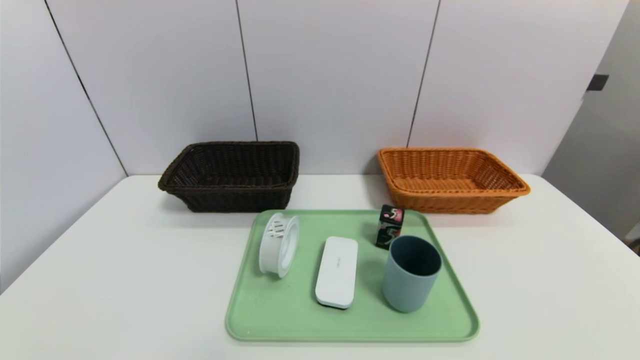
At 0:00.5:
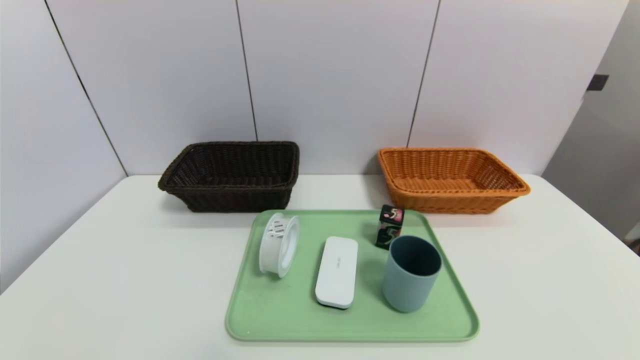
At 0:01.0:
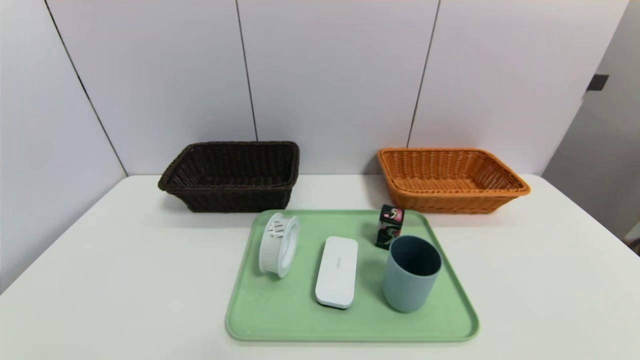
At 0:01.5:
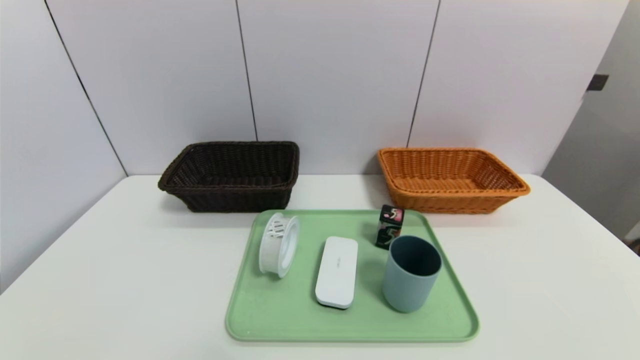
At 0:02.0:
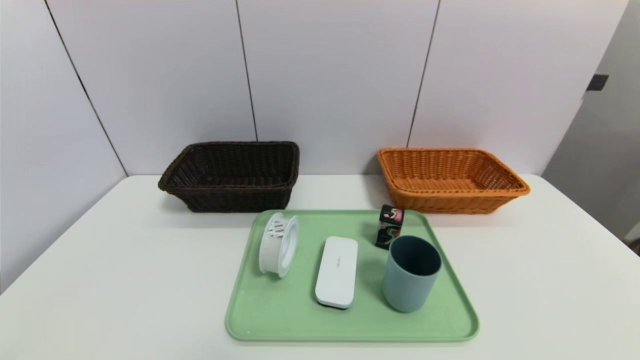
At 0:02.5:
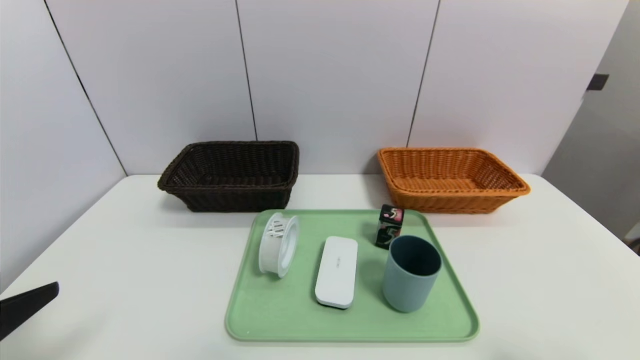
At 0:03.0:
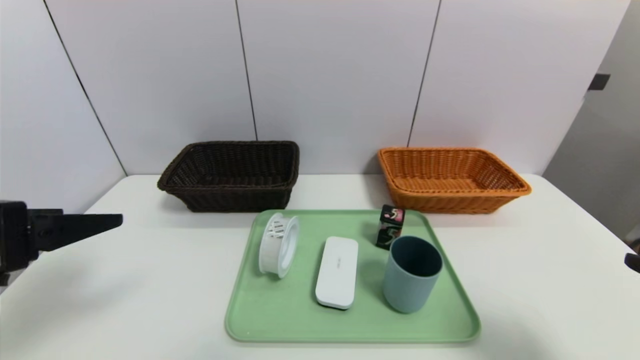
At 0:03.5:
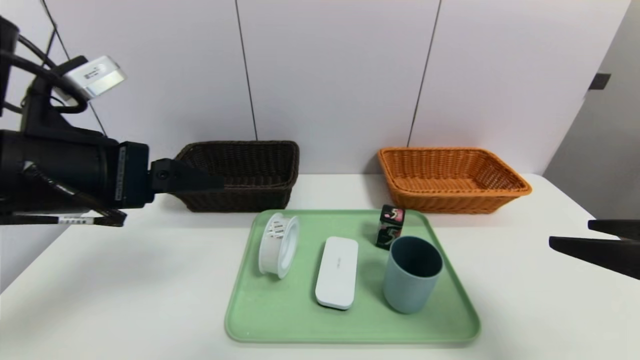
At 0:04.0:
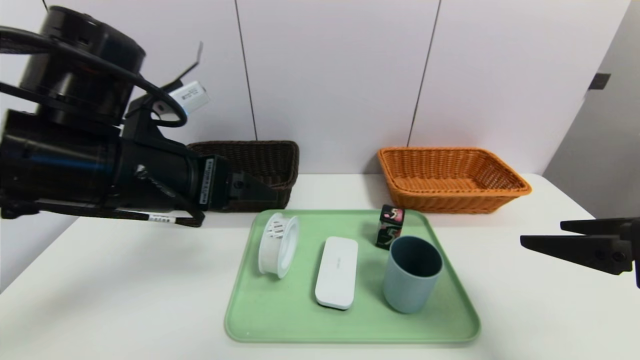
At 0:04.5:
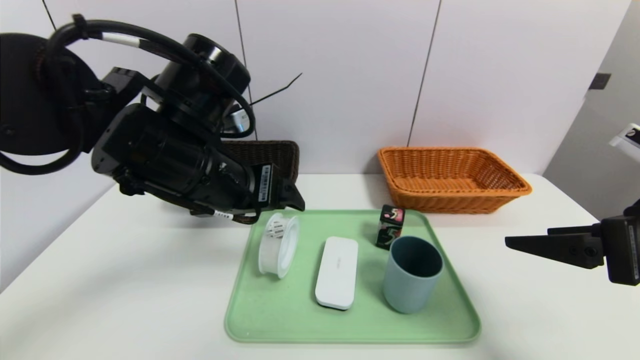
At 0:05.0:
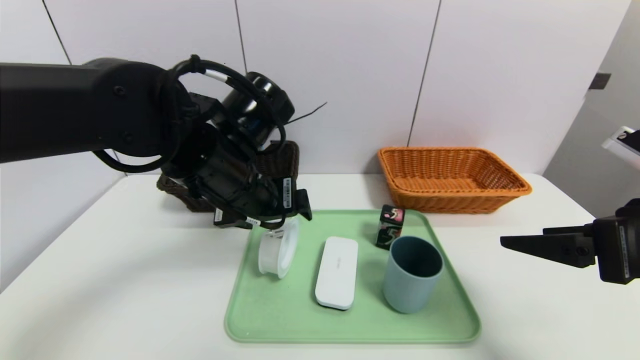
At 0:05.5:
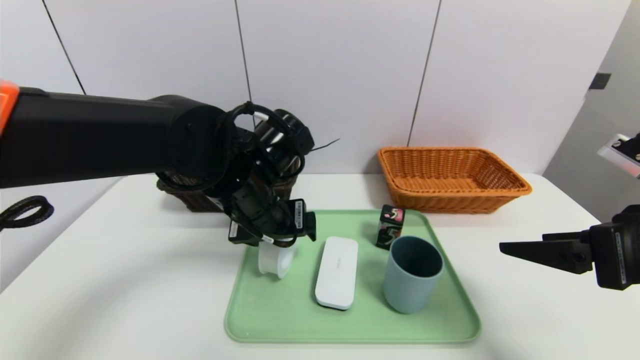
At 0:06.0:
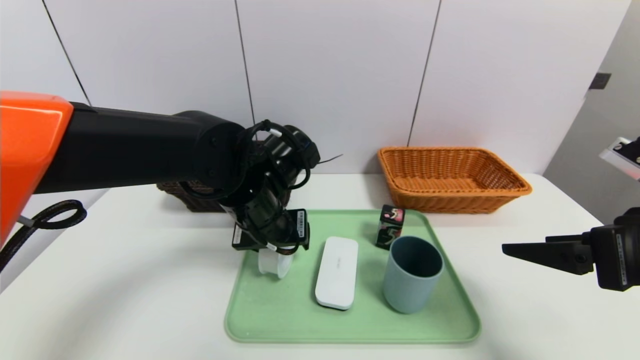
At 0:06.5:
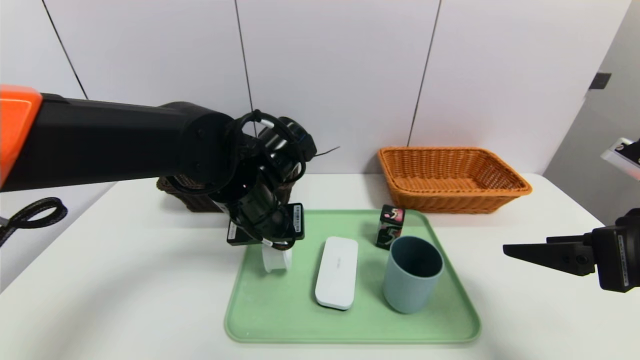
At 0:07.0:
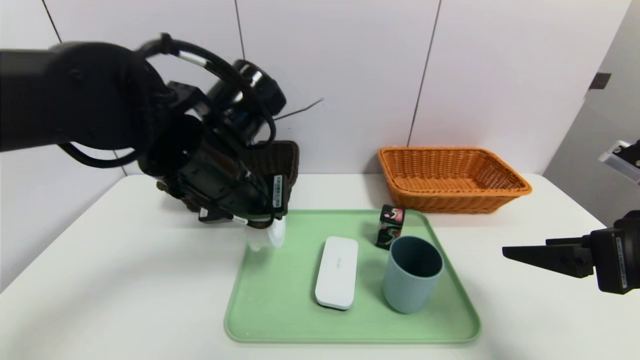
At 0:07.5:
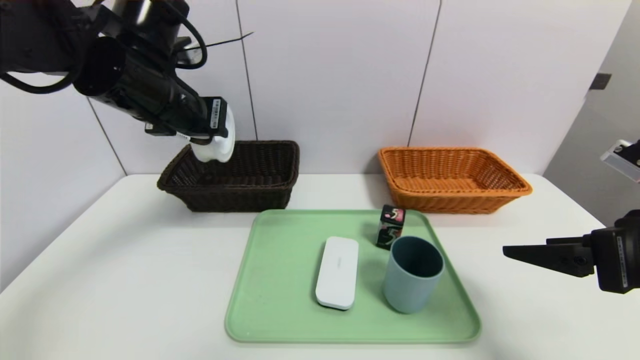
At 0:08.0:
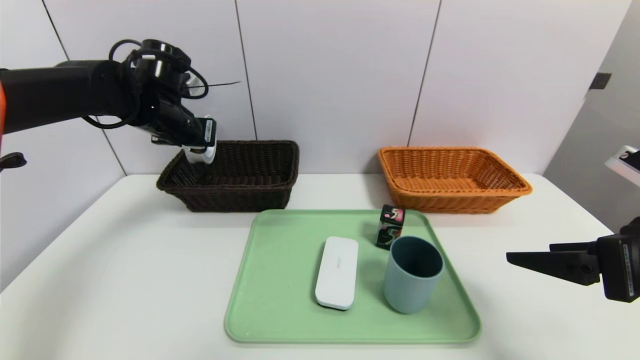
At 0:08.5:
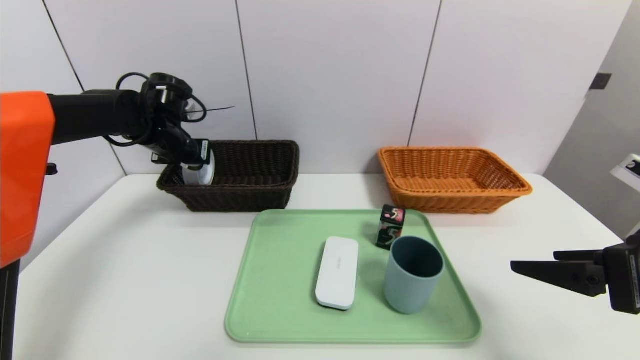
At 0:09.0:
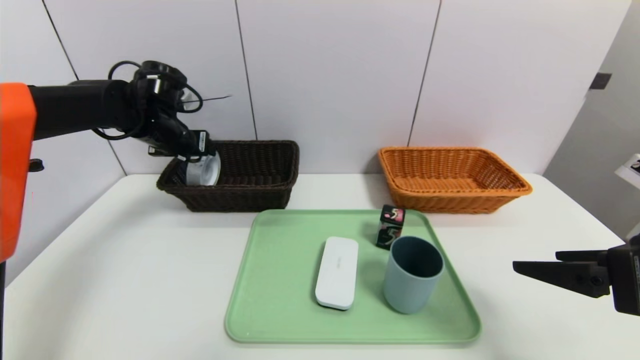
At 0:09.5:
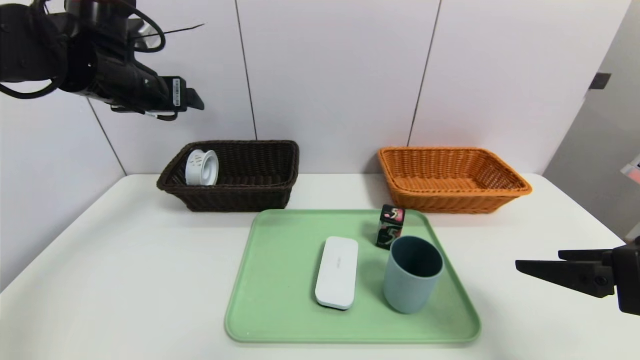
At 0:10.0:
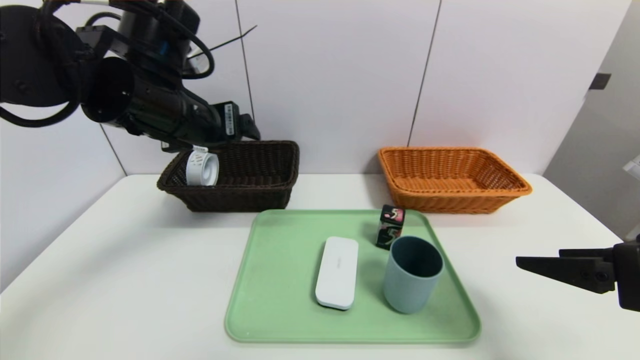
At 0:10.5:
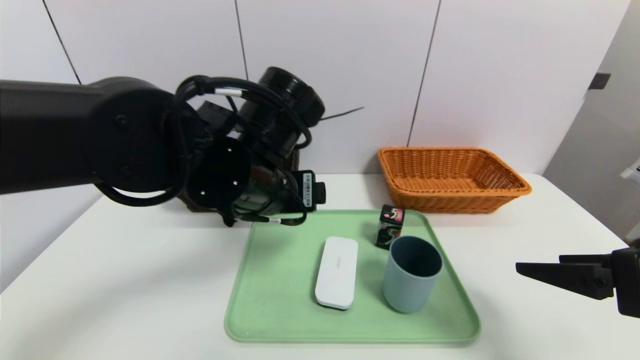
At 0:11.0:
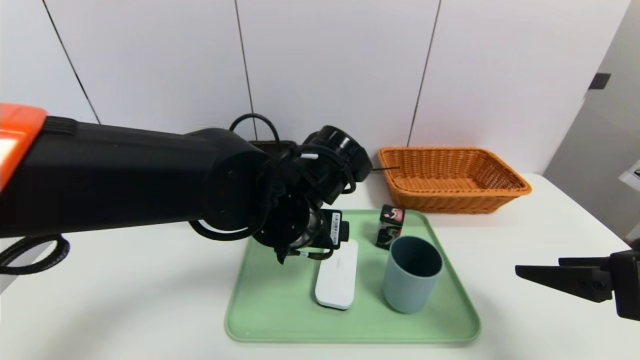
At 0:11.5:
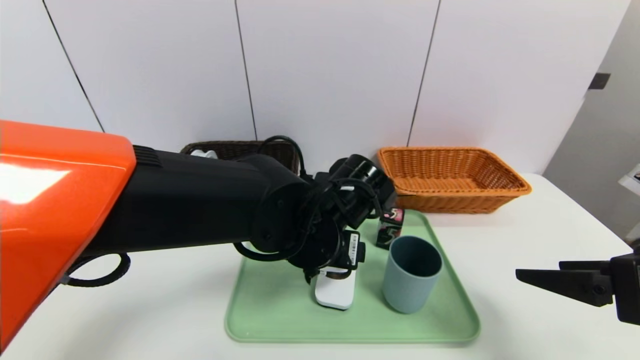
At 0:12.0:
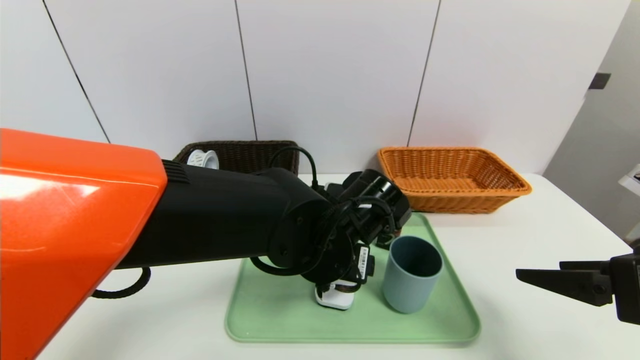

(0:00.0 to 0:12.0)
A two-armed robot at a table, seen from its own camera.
Task of the whole recording: place the food in the right basket with the right gripper, and place the non food items in the left basket with the left gripper.
Step, 0:00.0 - 0:09.0: Grasp the tape and put it in the left basket.
0:02.0 - 0:04.0: The right gripper shifts about 20 cm forward and upward; the left gripper moves forward and to the right, some 25 cm.
0:04.0 - 0:06.0: The left gripper moves downward, to the right and forward, roughly 15 cm, and closes.
0:06.0 - 0:08.0: The left gripper goes about 20 cm to the left, forward and upward, and closes its fingers.
0:08.0 - 0:10.0: The left gripper moves backward and to the right, roughly 15 cm, and opens.
0:10.0 - 0:12.0: The left gripper goes roughly 20 cm to the right and downward.

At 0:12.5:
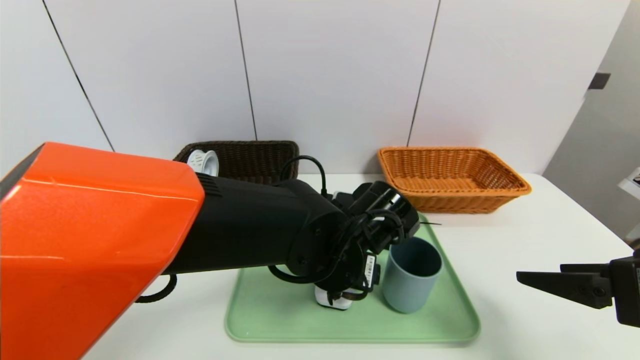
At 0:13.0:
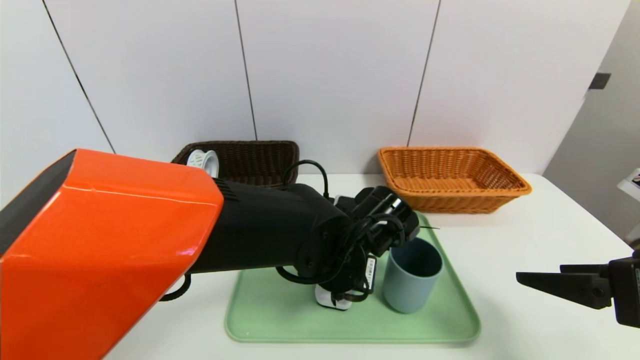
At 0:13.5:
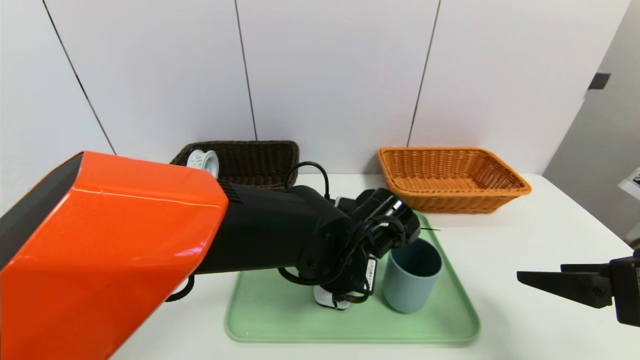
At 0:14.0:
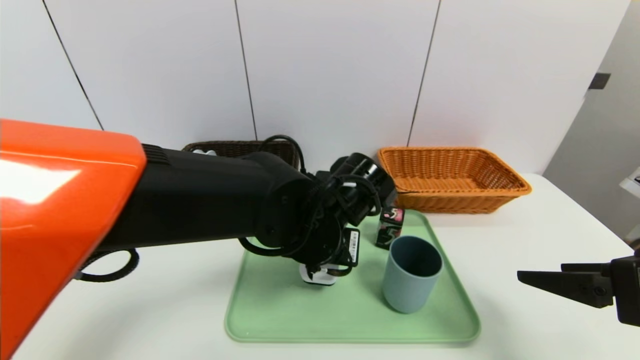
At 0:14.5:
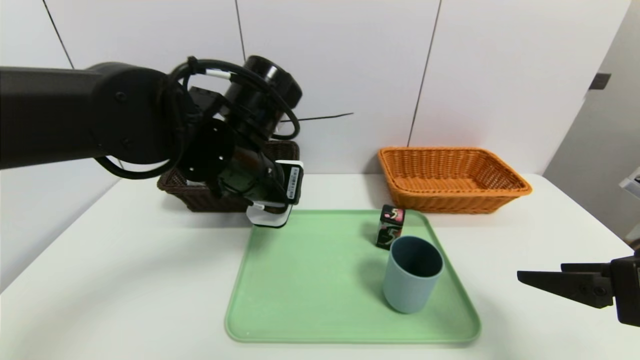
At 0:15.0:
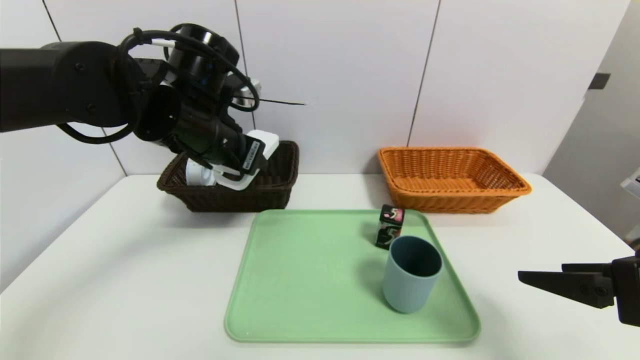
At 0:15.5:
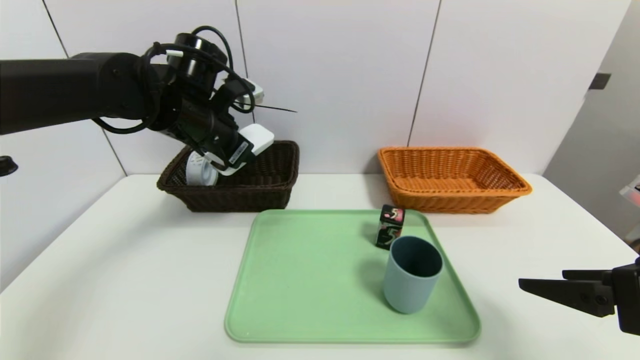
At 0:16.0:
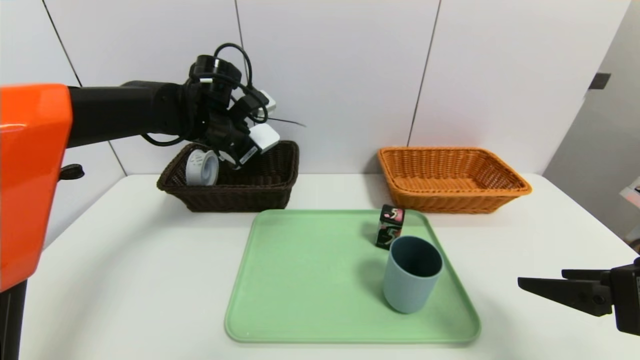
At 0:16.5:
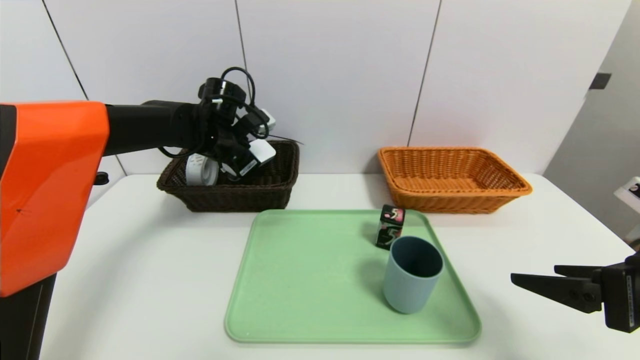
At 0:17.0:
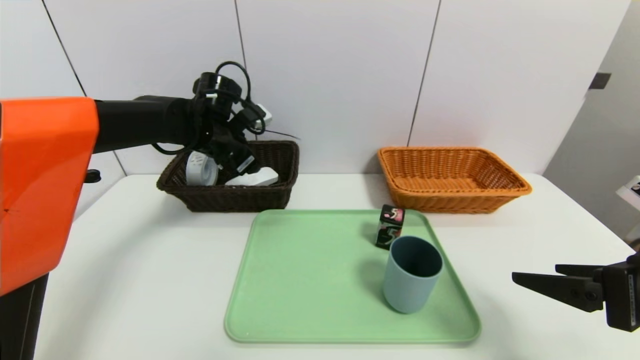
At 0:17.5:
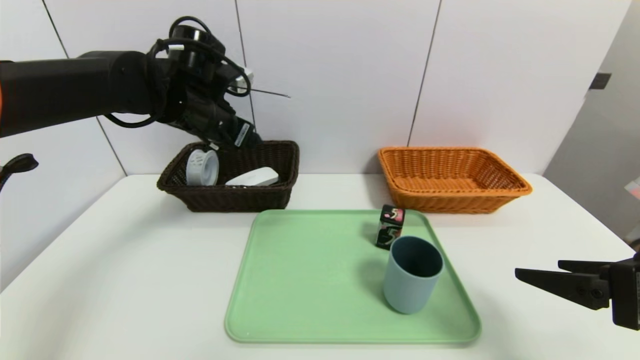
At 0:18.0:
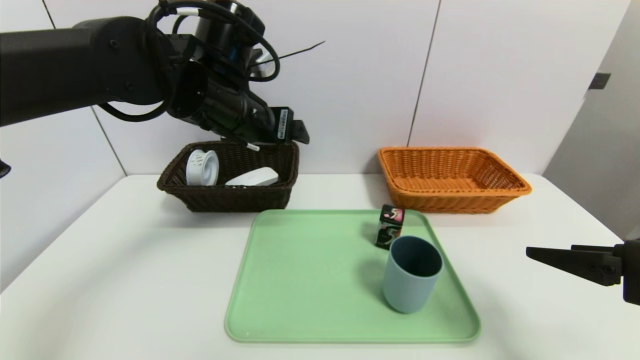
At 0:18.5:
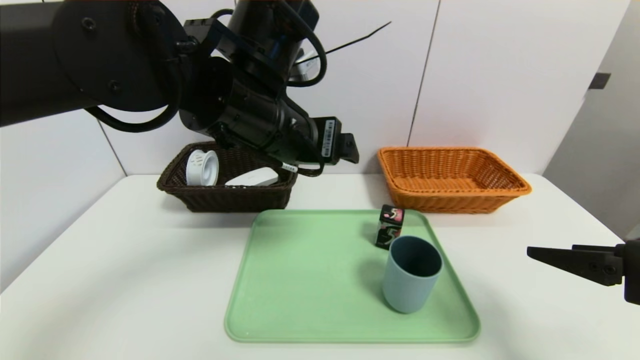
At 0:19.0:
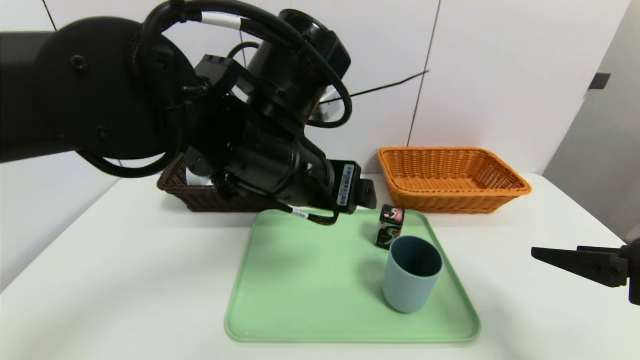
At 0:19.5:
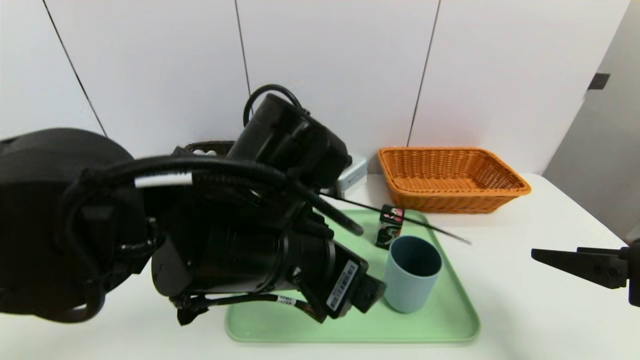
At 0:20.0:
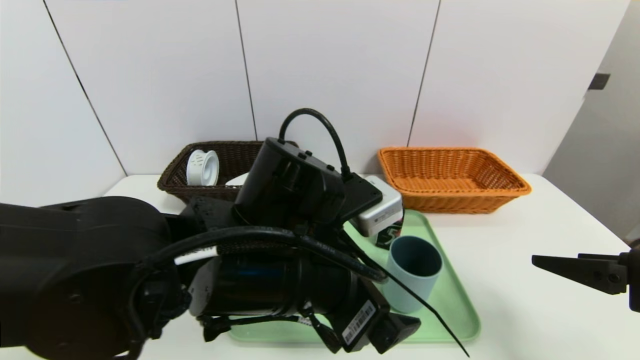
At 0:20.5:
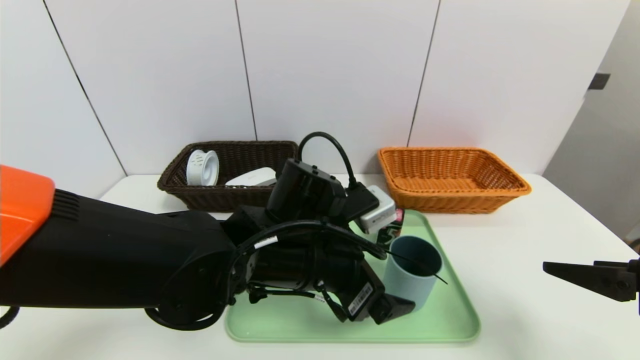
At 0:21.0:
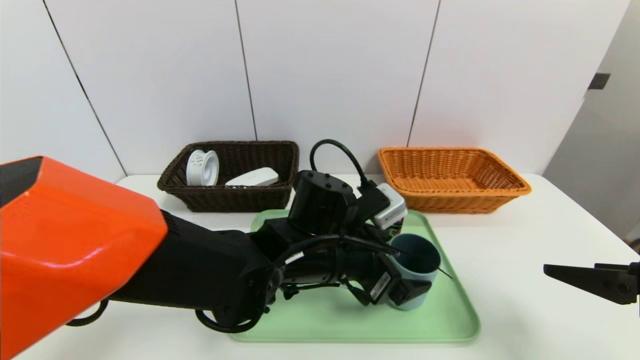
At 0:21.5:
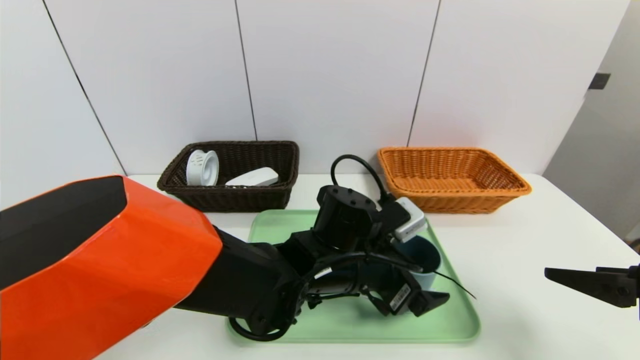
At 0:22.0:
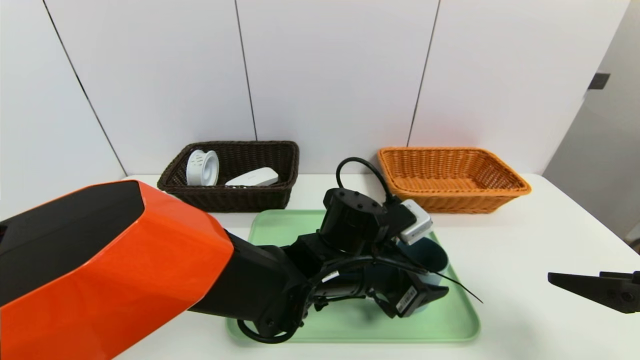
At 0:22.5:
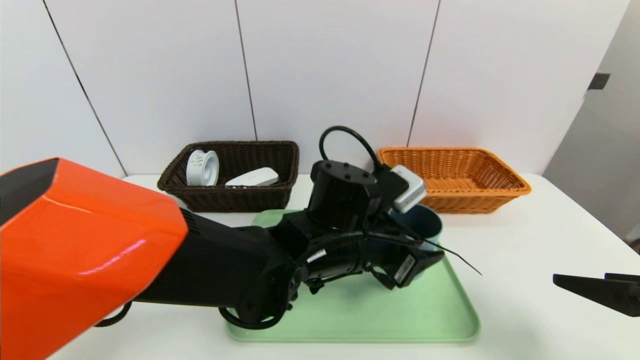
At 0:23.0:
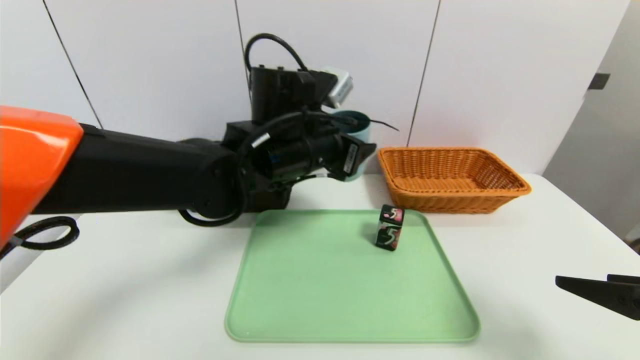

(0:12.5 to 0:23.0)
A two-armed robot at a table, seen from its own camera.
Task of the whole recording: place the food in the right basket with the right gripper, and place the non food items in the left basket with the left gripper.
Step, 0:12.5 - 0:17.0: Grasp the white eraser and put it in the left basket.
0:12.5 - 0:14.5: The left gripper goes approximately 15 cm to the left and upward, and closes up.
0:14.5 - 0:16.5: The left gripper is displaced forward and to the left by approximately 20 cm.
0:16.5 - 0:19.0: The left gripper is displaced backward and to the right by some 25 cm, and opens its fingers.
0:19.0 - 0:21.0: The left gripper travels downward by about 15 cm.
0:21.0 - 0:23.0: The left gripper travels upward and forward by about 15 cm, and closes.
